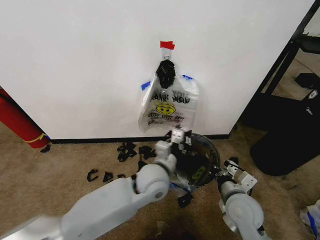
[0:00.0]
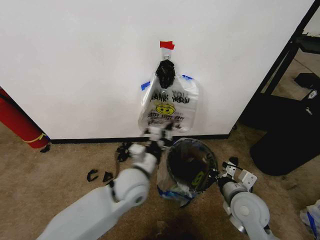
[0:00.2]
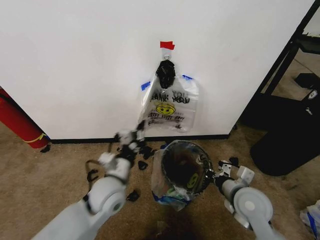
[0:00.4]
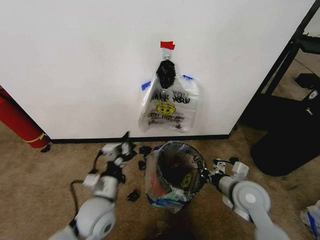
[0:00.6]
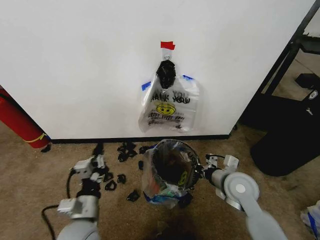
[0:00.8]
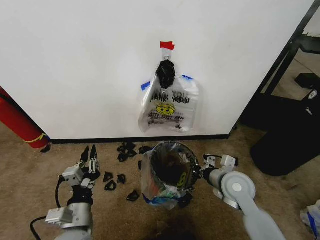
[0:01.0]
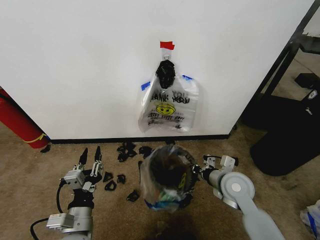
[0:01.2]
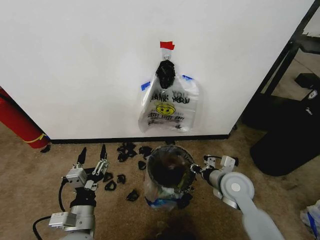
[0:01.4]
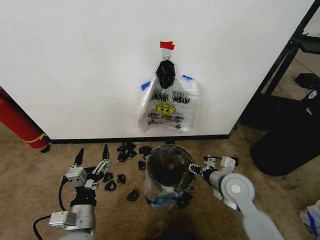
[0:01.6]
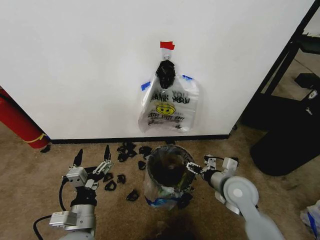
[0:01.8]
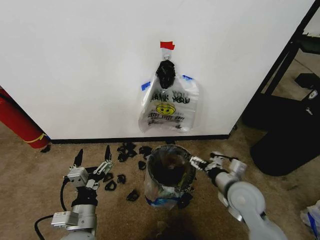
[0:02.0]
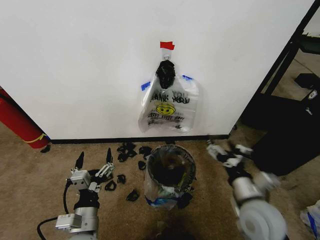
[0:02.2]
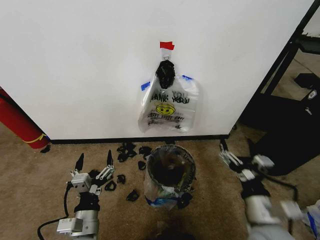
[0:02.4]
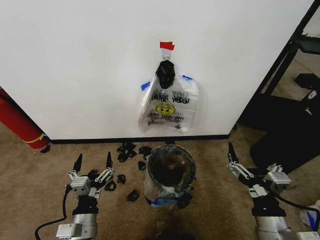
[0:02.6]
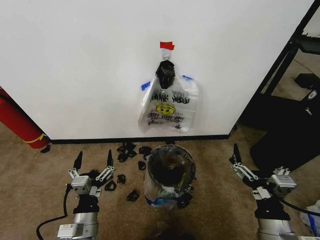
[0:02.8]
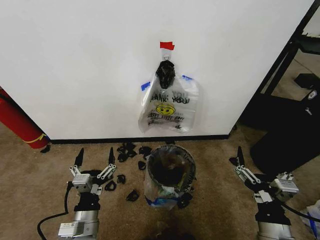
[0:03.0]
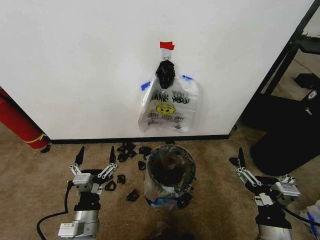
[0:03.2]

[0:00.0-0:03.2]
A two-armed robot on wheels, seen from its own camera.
Task of the whole recording: Pick up the garbage bag from the wall and place it over the trash bin.
0:00.0 to 0:01.6: The right gripper travels forward by about 5 cm, and opens up; the left gripper moves to the left and backward, roughly 25 cm, and opens its fingers.
0:01.6 to 0:03.2: The right gripper is displaced backward by some 20 cm, and opens up.

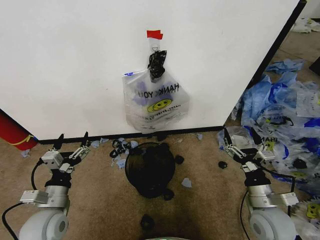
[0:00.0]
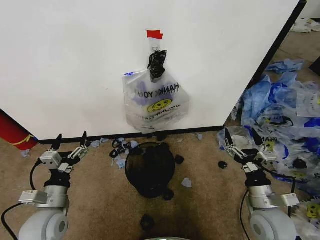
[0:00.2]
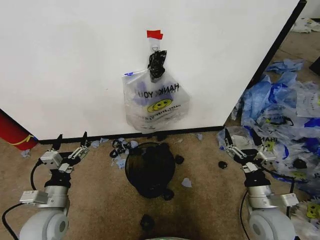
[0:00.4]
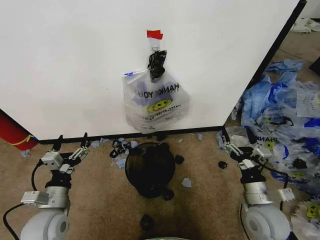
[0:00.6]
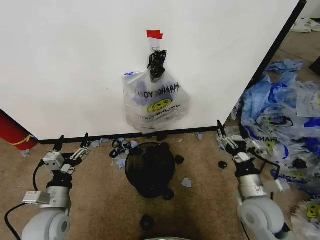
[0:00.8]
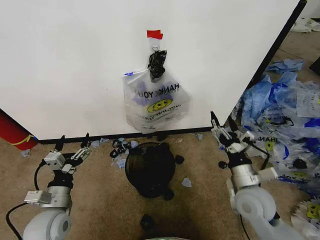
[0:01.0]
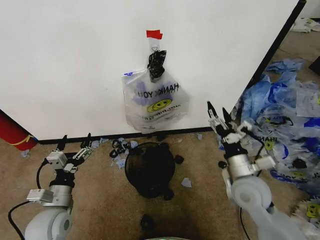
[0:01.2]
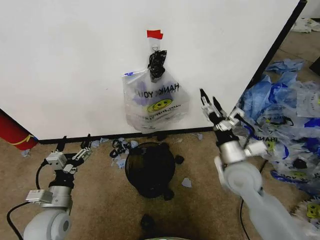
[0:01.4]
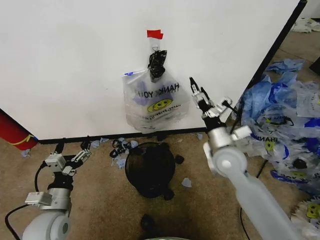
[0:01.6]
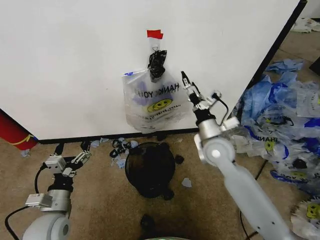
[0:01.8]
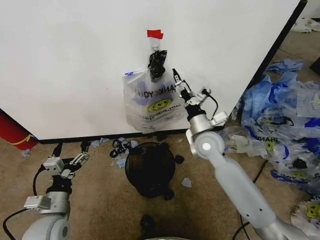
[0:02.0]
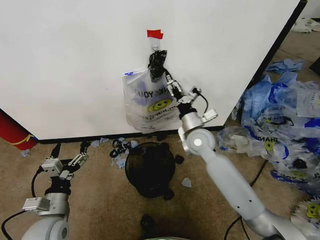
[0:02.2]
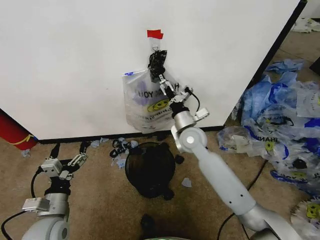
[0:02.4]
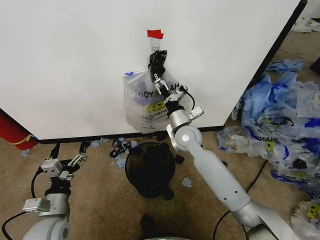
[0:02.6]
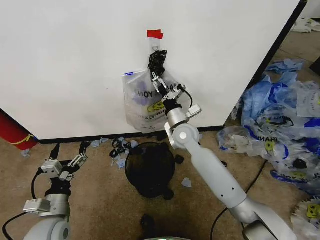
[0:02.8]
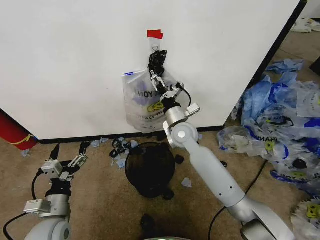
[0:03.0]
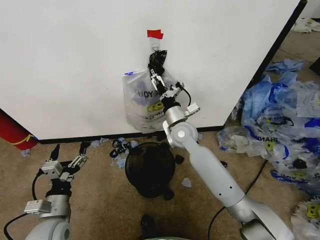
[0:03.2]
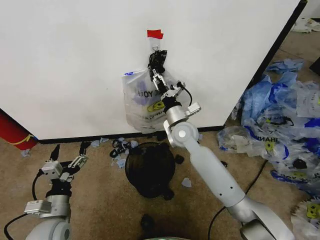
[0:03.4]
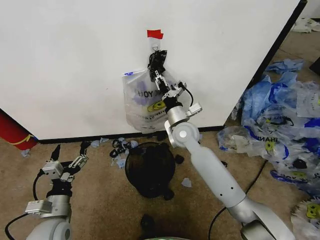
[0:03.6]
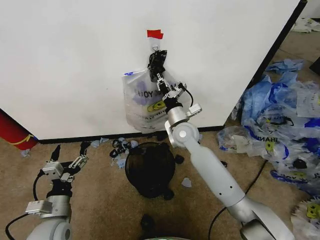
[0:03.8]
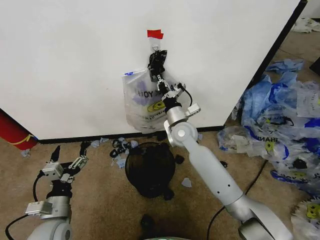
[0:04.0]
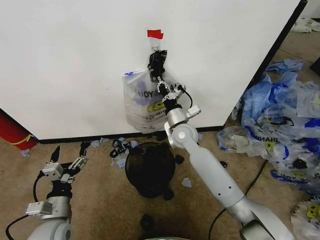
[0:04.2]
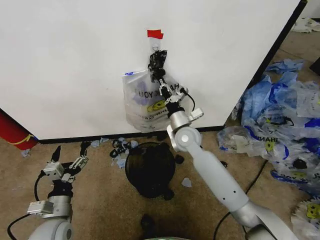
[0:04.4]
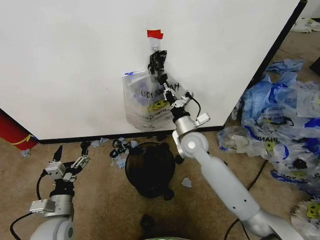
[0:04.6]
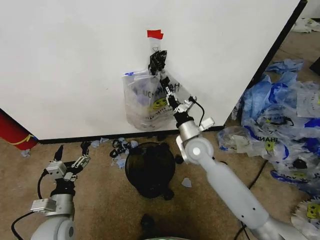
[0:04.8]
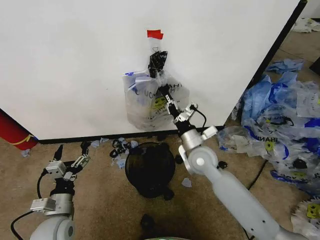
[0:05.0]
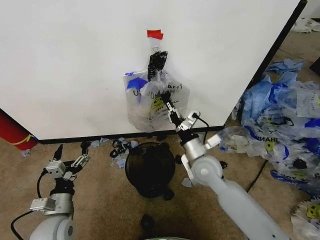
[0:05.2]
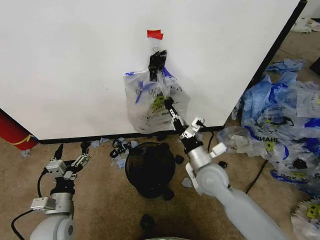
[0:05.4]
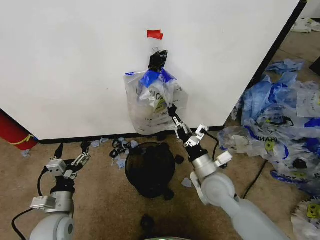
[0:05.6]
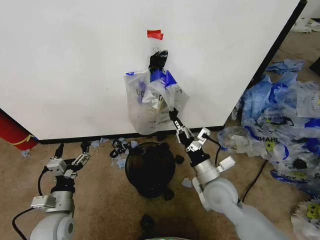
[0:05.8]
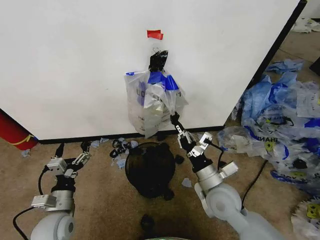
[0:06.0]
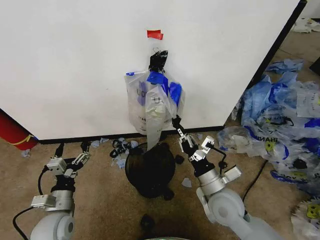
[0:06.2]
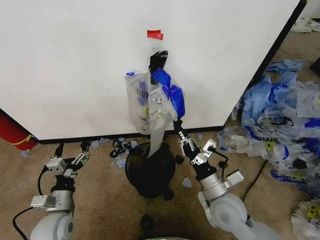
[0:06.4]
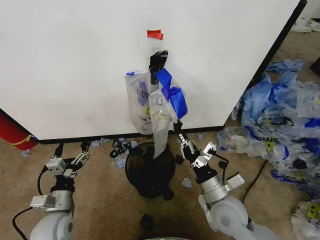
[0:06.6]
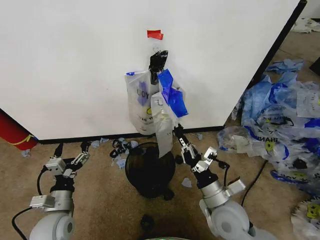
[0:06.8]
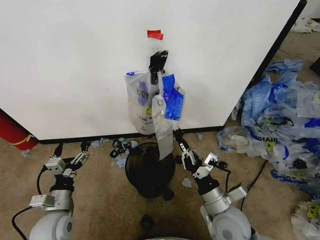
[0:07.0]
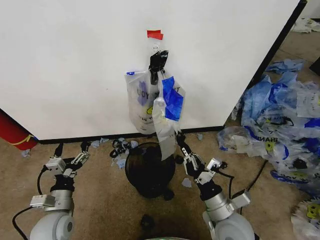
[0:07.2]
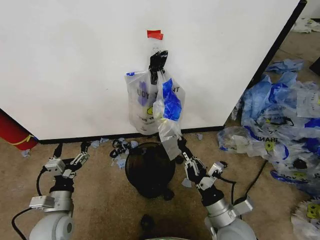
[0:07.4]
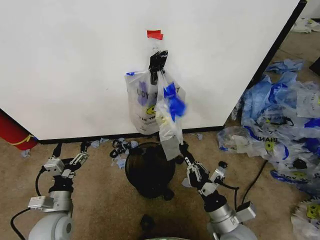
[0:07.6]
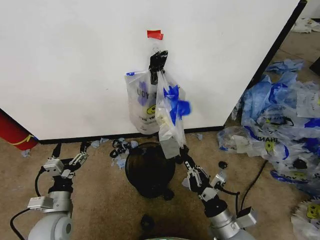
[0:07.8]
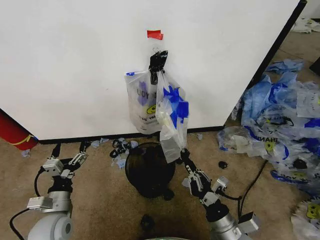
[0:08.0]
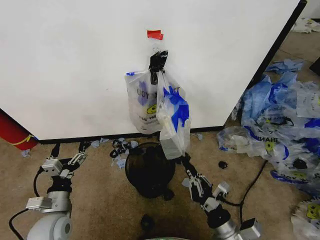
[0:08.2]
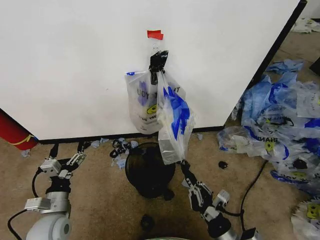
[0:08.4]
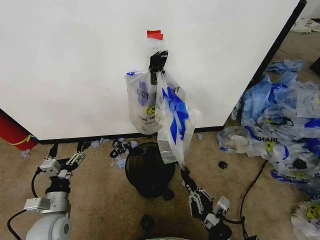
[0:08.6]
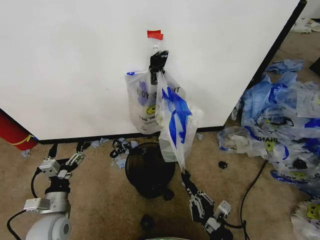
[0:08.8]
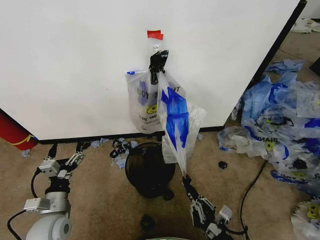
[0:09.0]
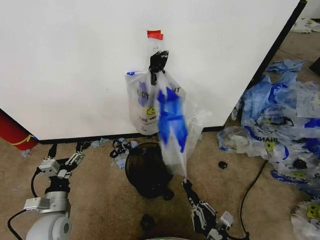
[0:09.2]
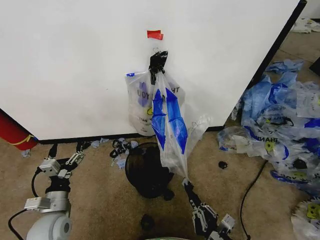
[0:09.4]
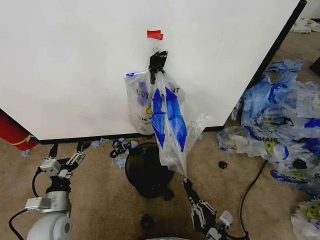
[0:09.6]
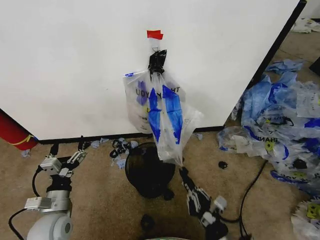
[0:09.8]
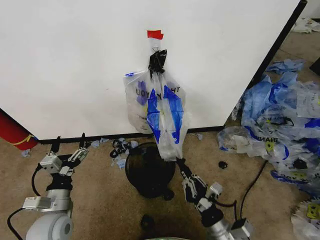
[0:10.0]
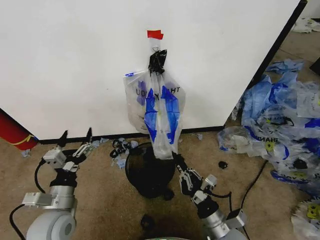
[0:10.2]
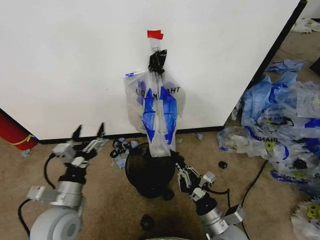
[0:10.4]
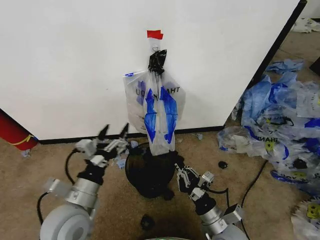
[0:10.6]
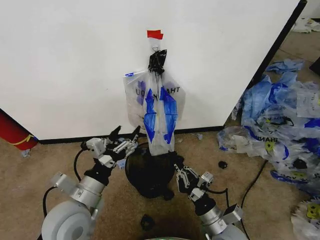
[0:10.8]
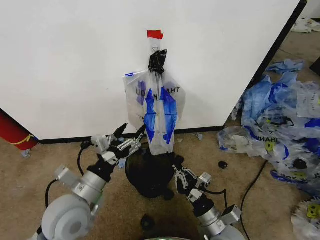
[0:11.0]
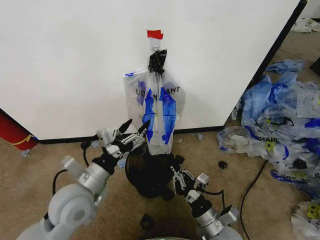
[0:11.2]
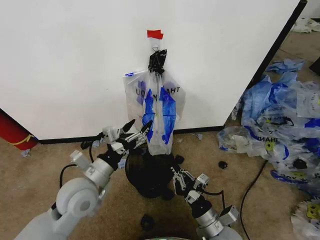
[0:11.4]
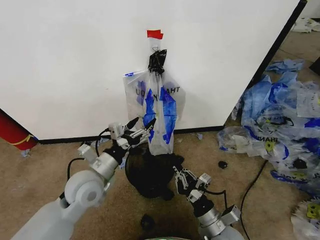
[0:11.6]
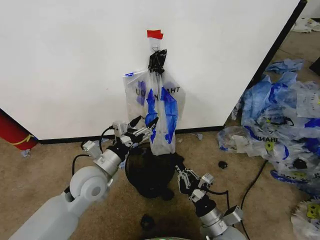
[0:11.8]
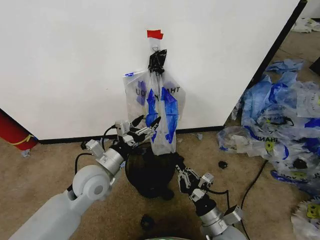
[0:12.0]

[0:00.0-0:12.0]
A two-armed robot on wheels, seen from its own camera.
Task of the whole recording: Pick up the garbage bag from the wall and place it over the trash bin.
0:01.6 to 0:03.0: The right gripper goes about 15 cm to the left and forward.
0:03.0 to 0:04.4: The right gripper closes.
0:04.4 to 0:06.0: The right gripper travels backward and to the right by about 20 cm.
0:06.0 to 0:07.6: The right gripper heads backward, covering about 10 cm.
0:07.6 to 0:09.0: The right gripper shifts some 10 cm backward and downward.
0:09.0 to 0:10.4: The left gripper heads upward and to the right, covering some 10 cm. The right gripper heads forward, covering some 10 cm.
0:10.4 to 0:12.0: The left gripper goes approximately 10 cm forward.

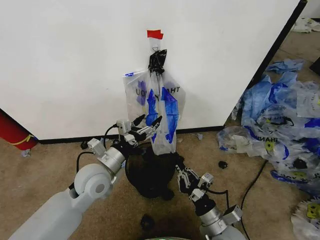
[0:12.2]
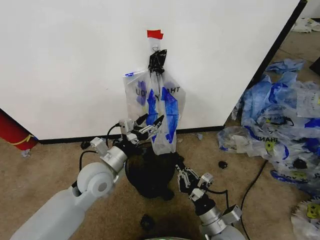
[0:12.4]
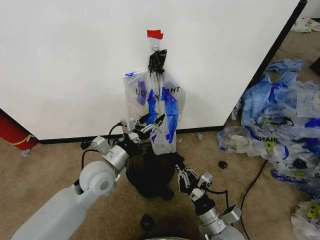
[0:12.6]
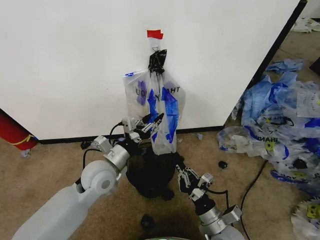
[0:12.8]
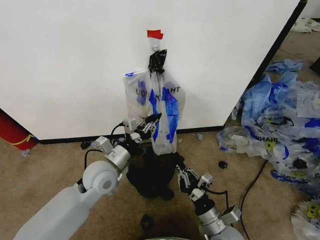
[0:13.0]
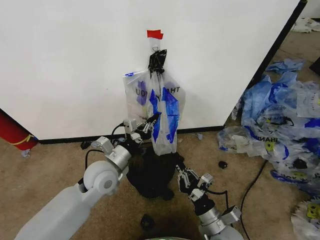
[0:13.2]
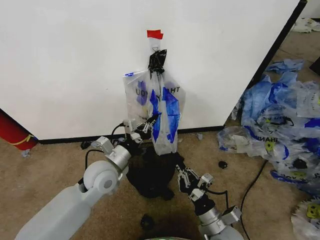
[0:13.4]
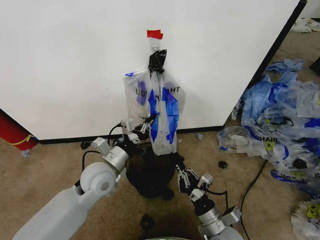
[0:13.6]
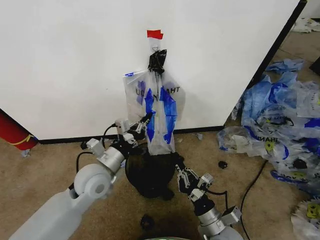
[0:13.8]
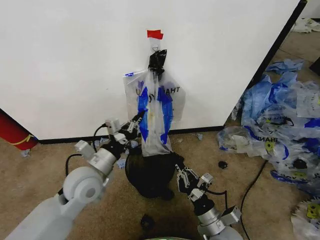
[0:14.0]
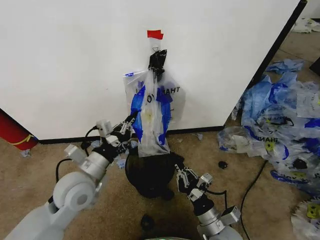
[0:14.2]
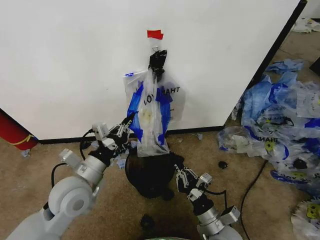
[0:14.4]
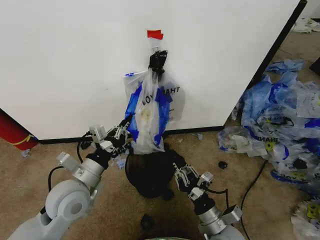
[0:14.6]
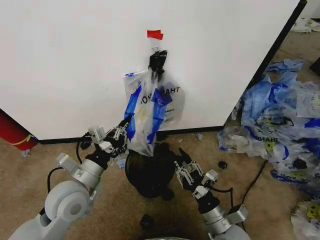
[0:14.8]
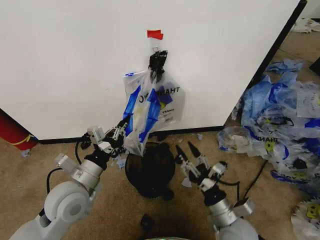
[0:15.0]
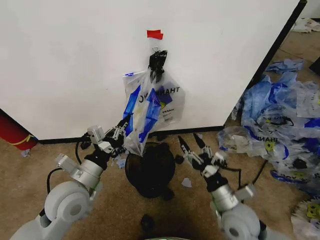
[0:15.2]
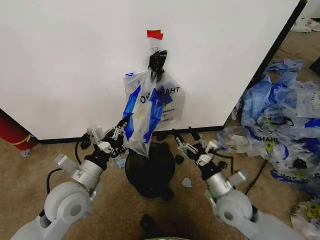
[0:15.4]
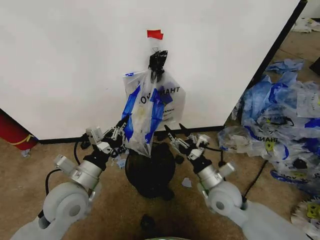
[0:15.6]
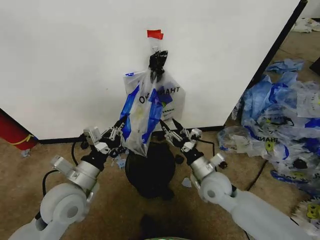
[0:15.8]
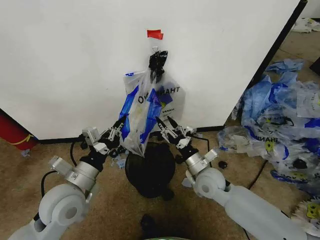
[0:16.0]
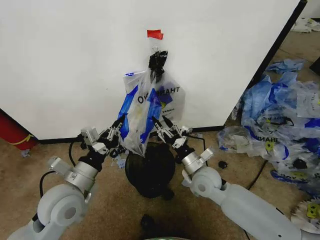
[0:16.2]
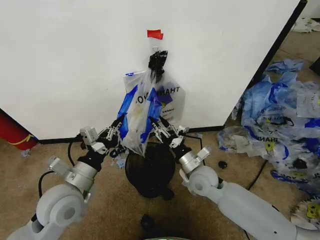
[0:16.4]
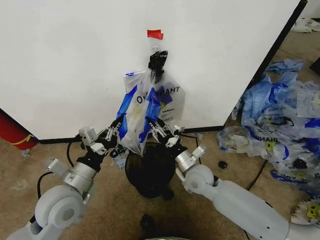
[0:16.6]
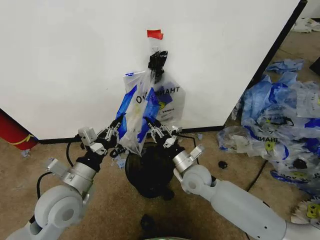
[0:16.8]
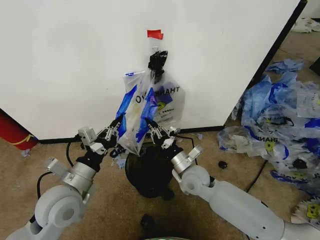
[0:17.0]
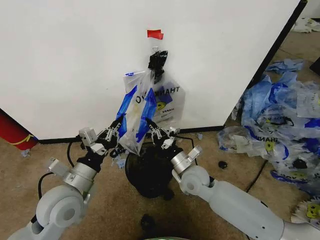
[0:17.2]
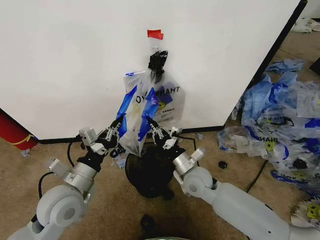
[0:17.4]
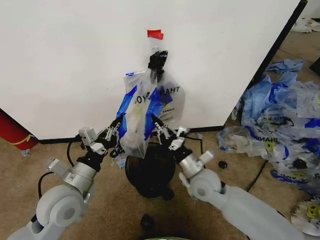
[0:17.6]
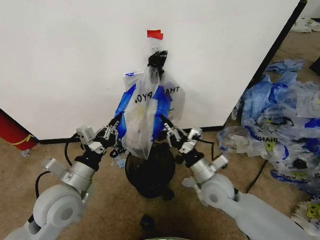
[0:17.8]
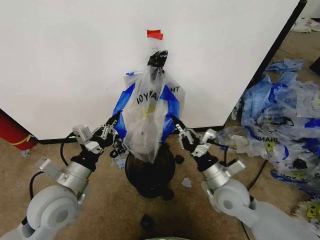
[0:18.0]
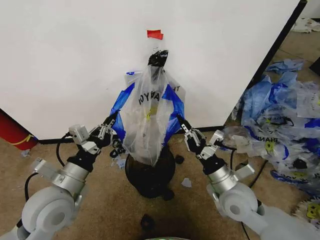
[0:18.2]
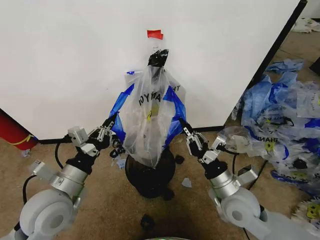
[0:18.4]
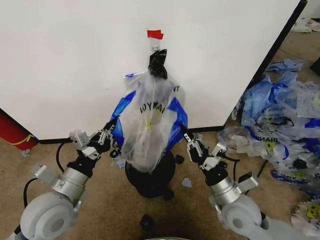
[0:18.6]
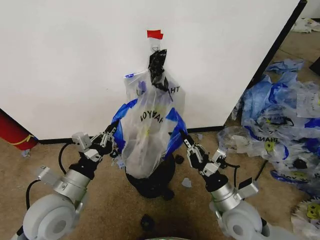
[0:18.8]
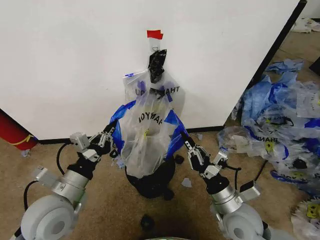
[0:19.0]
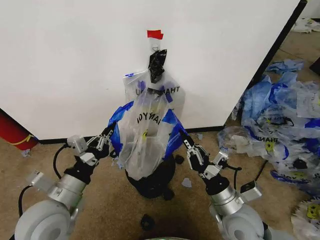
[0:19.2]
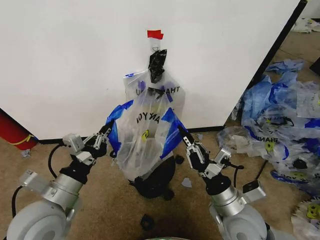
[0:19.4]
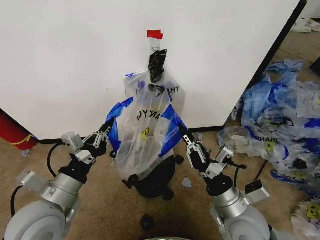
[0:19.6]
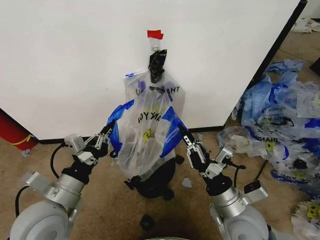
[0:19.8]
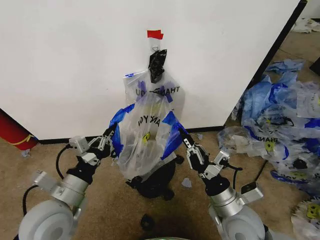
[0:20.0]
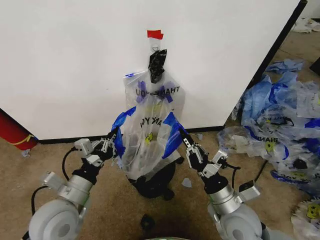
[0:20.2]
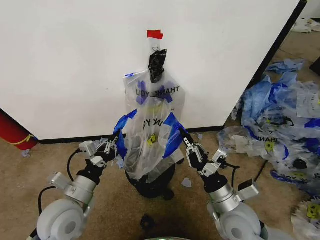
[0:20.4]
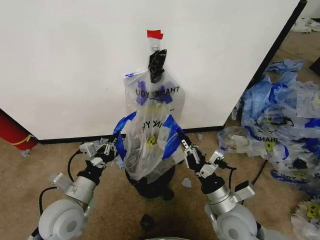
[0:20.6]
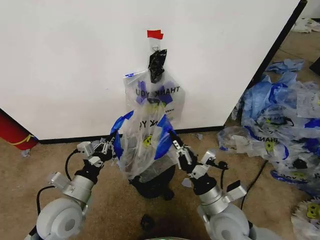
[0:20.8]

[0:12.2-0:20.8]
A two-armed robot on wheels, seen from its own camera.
Task of the whole recording: Pick up the garbage bag from the wall and place it over the trash bin.
0:12.2 to 0:13.6: The left gripper closes.
0:13.6 to 0:15.0: The right gripper opens. The left gripper moves backward and to the left, about 10 cm.
0:15.0 to 0:16.6: The right gripper travels forward and to the left by about 20 cm, and opens, then closes again.
0:16.6 to 0:18.0: The right gripper goes approximately 10 cm backward and to the right, and closes.
0:18.0 to 0:19.4: The right gripper travels backward by about 5 cm.
0:19.4 to 0:20.8: The left gripper is displaced downward by approximately 5 cm.
